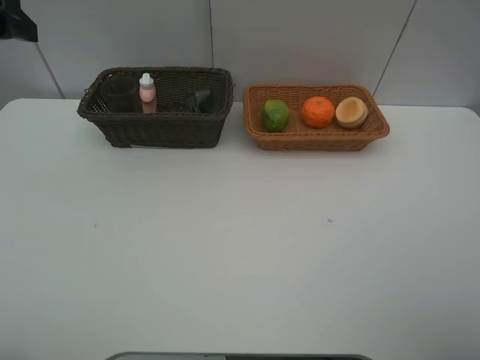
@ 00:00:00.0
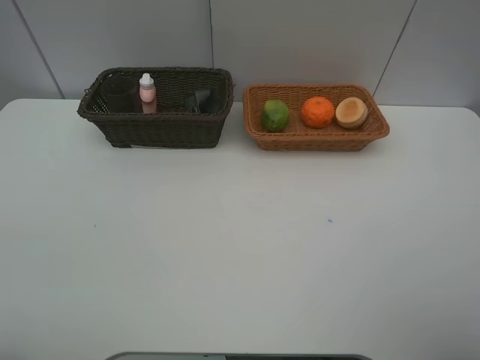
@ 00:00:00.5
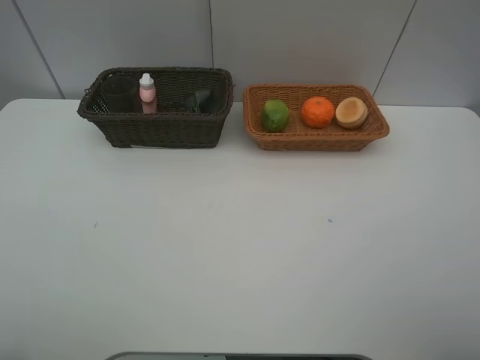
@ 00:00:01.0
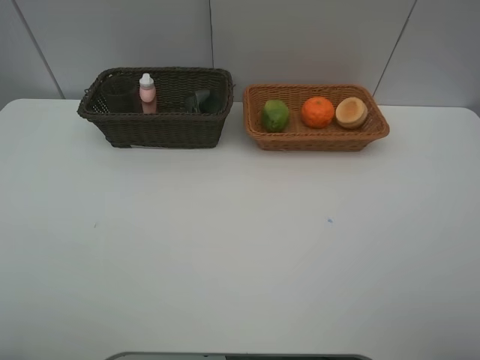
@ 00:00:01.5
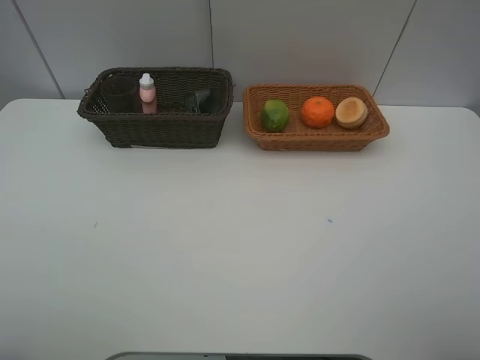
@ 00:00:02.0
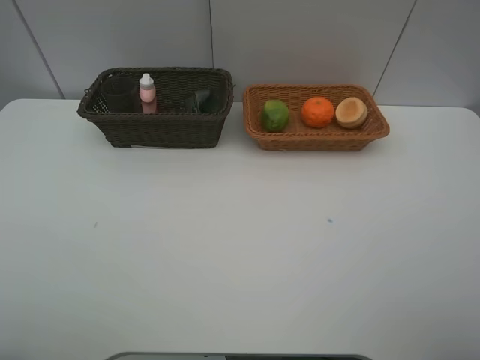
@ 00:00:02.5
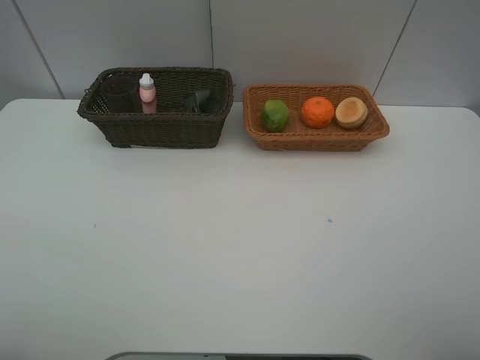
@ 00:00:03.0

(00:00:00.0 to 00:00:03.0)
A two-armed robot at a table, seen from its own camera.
Task of the whole recording: place multiple objects separately in different baskets.
00:00:00.0 - 00:00:01.5: The left gripper heads backward, covering approximately 25 cm.
